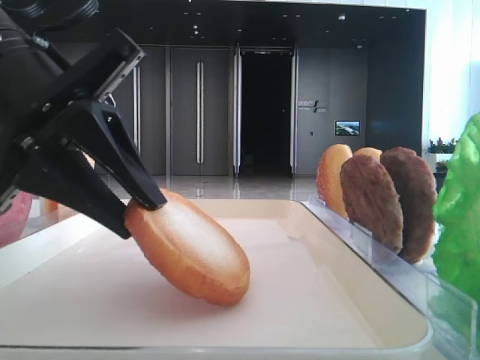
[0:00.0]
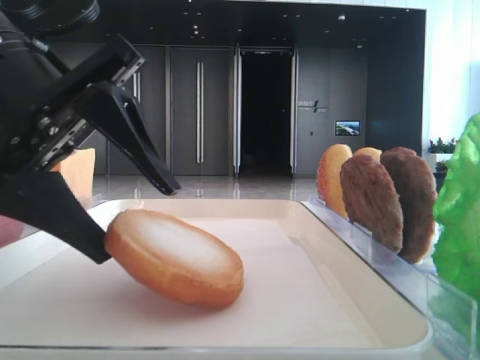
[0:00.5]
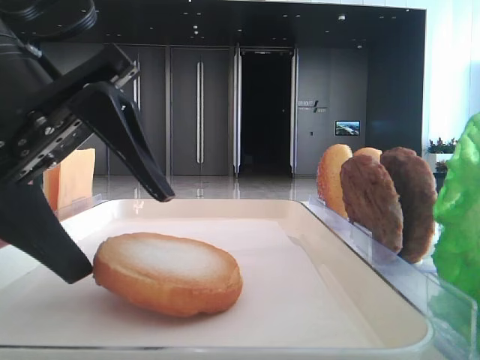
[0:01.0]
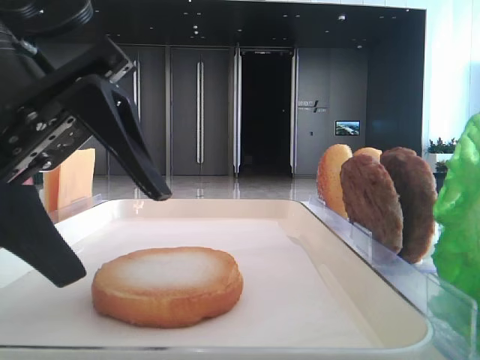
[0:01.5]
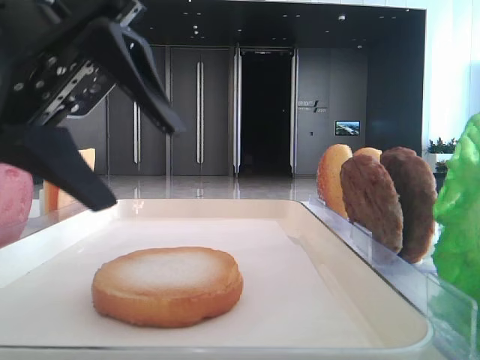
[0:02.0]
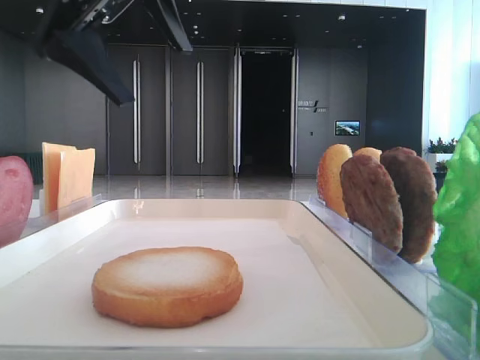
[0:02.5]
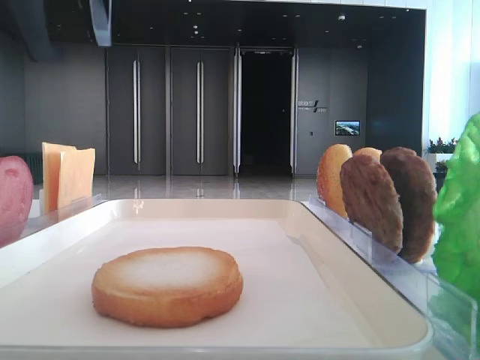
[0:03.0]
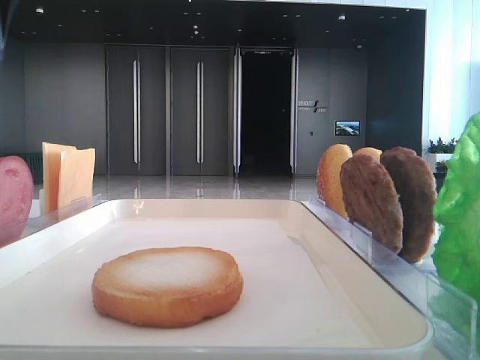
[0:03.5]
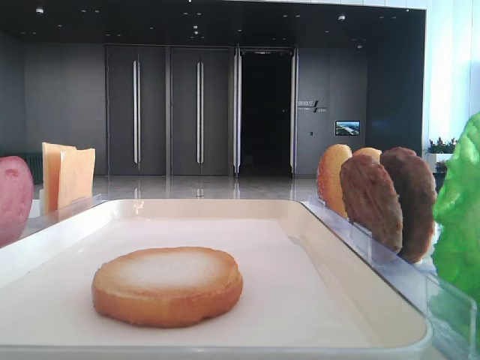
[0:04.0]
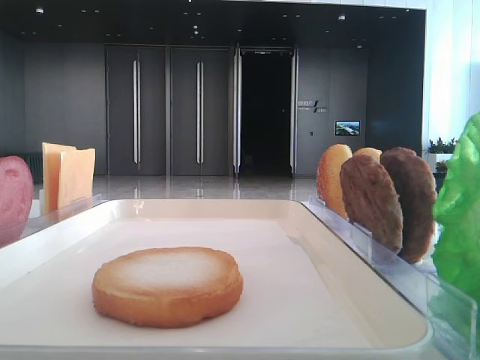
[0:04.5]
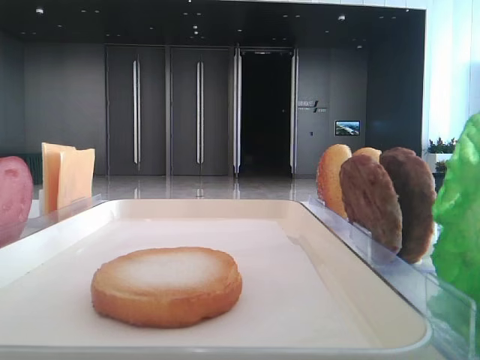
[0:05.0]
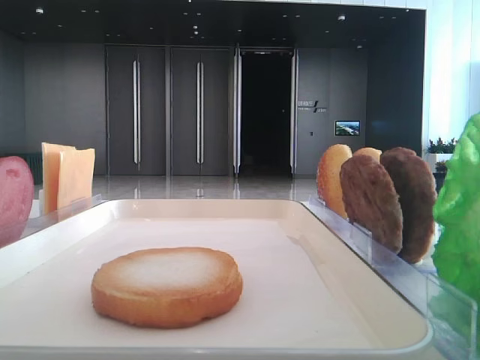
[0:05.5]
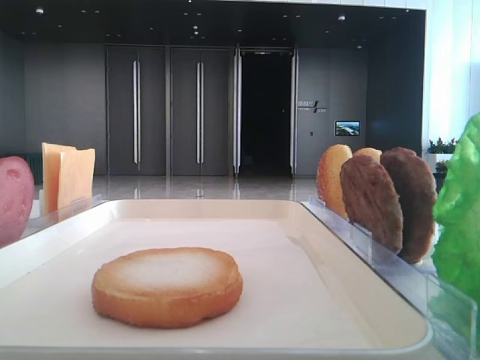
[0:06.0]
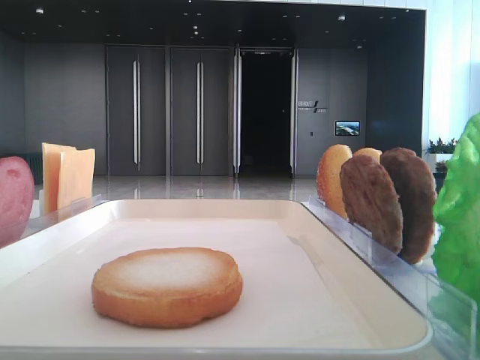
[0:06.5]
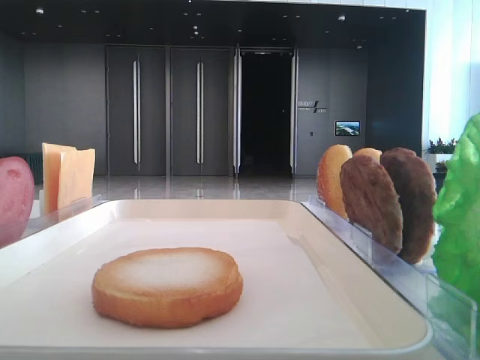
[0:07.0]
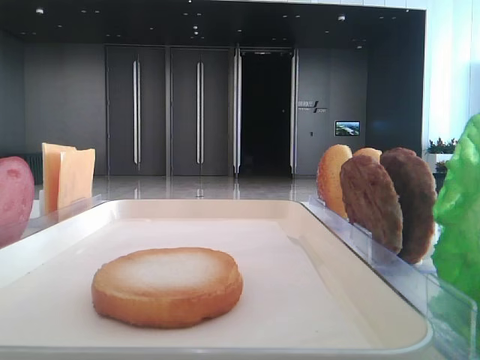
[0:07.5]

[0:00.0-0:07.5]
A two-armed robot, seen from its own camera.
0:00.0 to 0:02.0: The left gripper opens up.
0:02.0 to 0:04.0: The left gripper shifts about 25 cm to the left, upward and forward.
